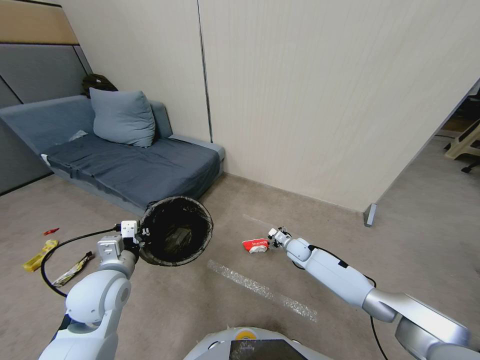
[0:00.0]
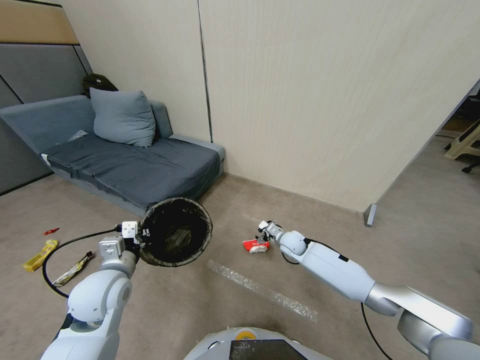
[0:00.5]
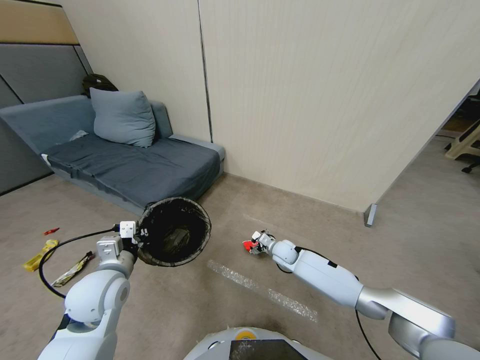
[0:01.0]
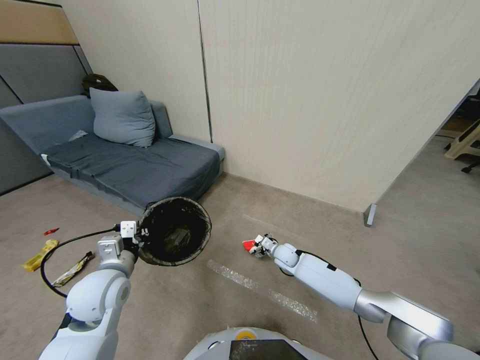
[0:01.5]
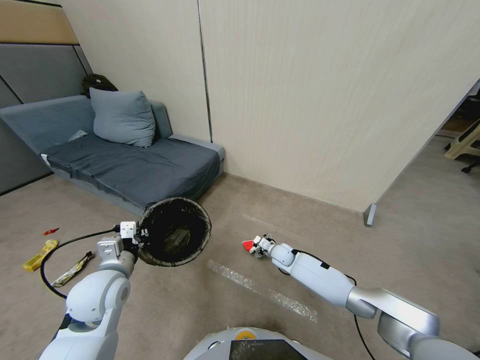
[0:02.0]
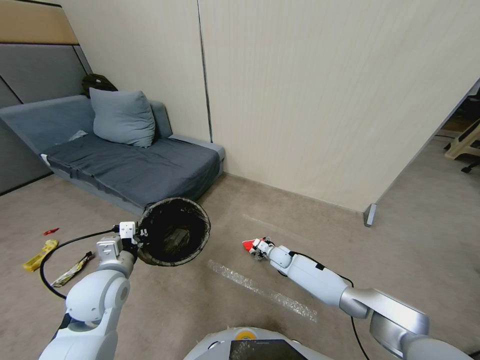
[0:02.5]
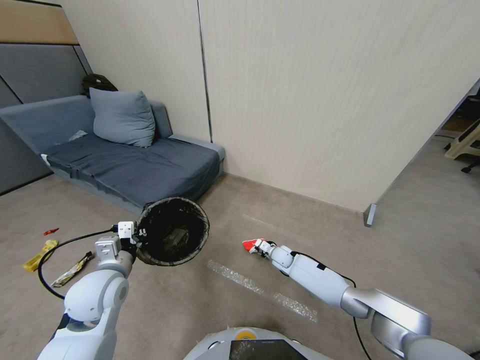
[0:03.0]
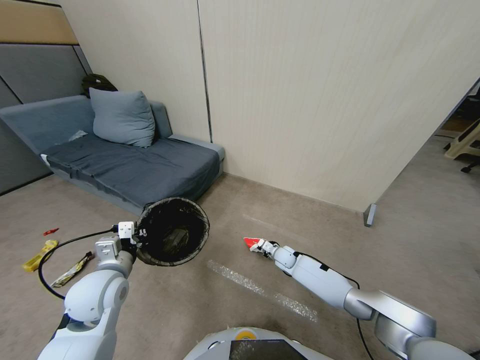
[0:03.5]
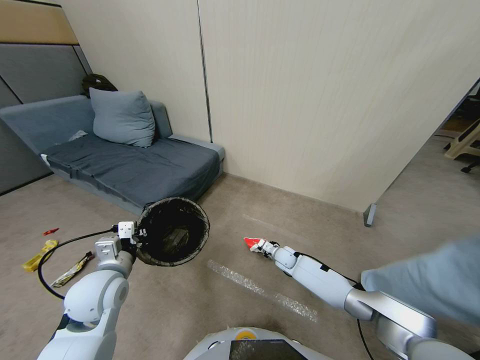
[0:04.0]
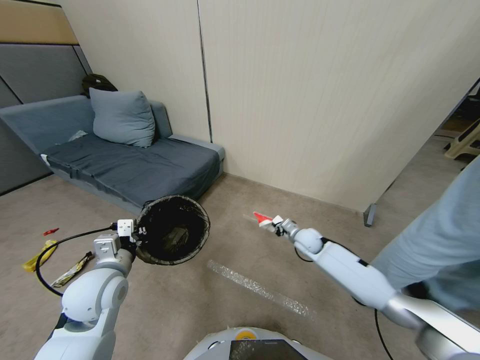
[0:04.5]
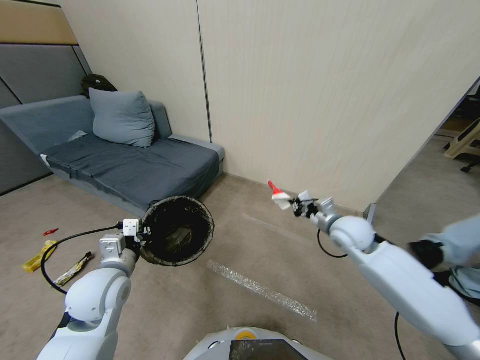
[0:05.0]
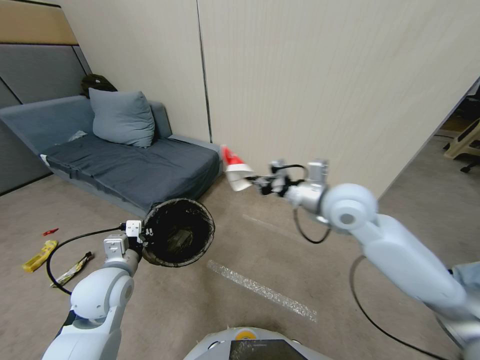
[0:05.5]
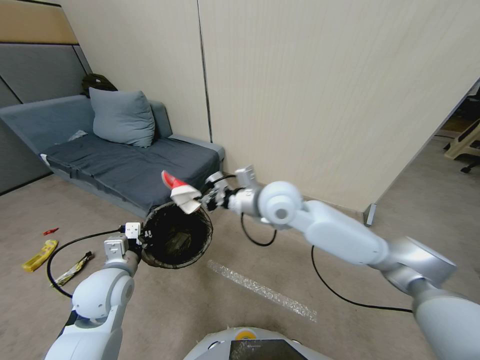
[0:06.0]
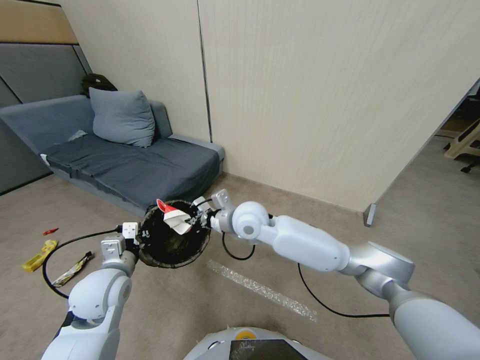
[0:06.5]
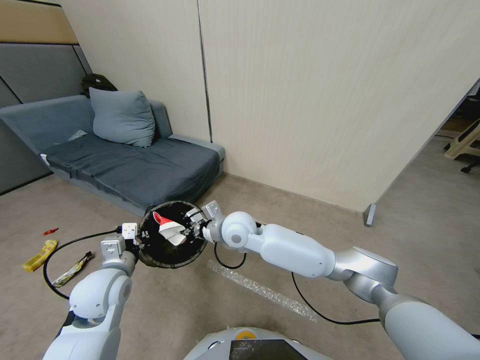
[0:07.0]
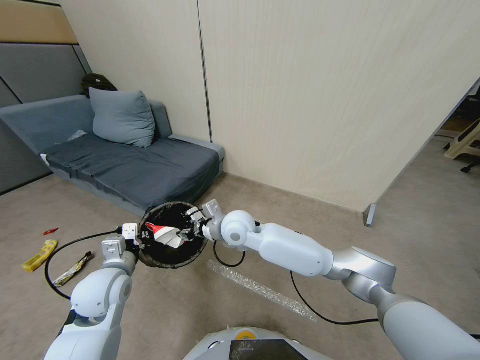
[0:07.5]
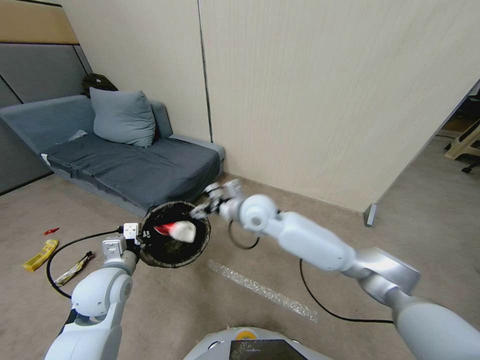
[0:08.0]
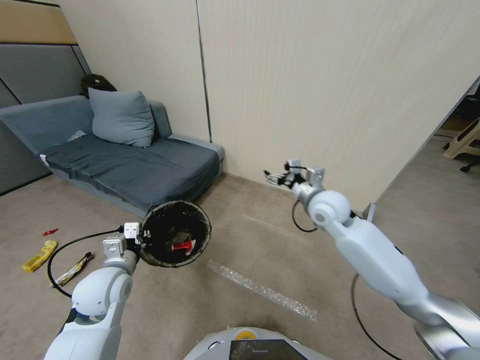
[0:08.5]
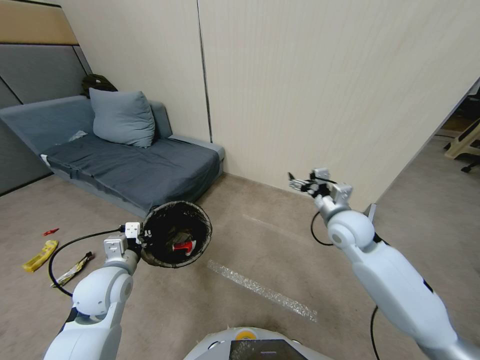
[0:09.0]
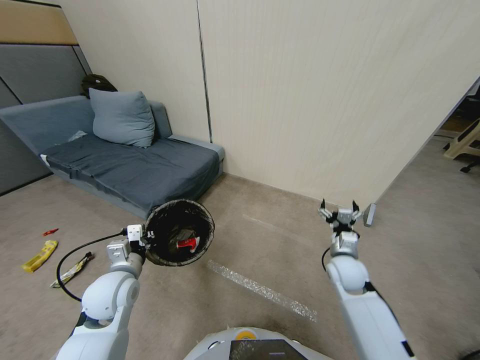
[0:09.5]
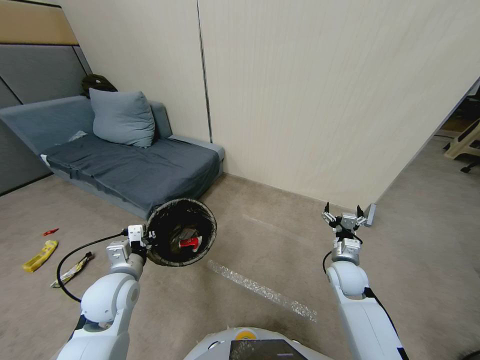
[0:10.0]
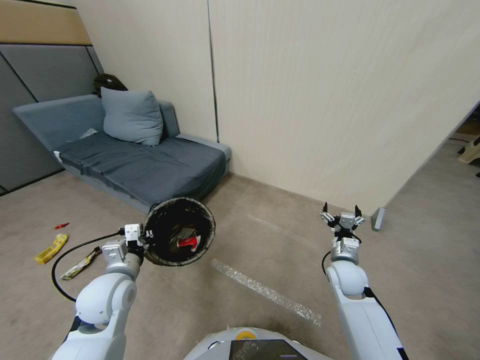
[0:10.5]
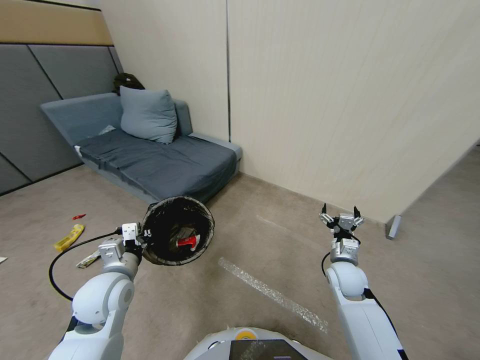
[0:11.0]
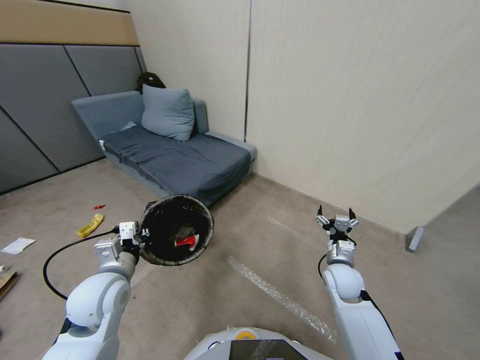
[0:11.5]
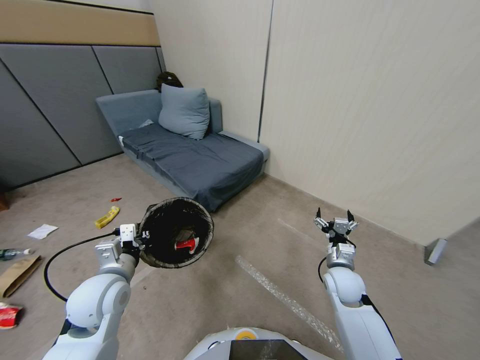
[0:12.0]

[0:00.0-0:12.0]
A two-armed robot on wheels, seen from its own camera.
Task of the whole recording: Pick up the trash bin, then pick up the garbage from the floor and place it into the trash bin.
0:00.0 to 0:02.0: The right gripper heads to the left, covering approximately 5 cm.
0:02.0 to 0:04.0: The right gripper closes.
0:04.0 to 0:06.0: The right gripper shifts some 40 cm upward.
0:06.0 to 0:08.0: The right gripper travels to the left and back again, some 5 cm each way, and opens up.
0:08.0 to 0:10.0: The right gripper travels to the right, downward and backward by approximately 30 cm.

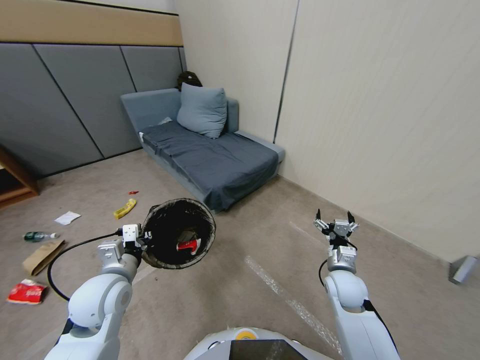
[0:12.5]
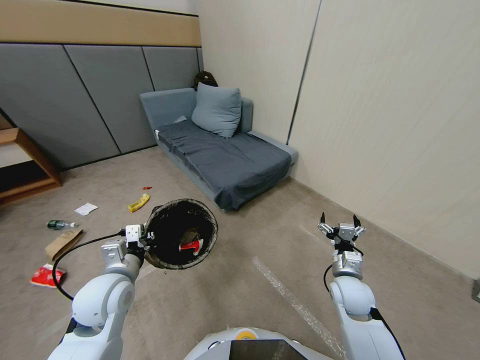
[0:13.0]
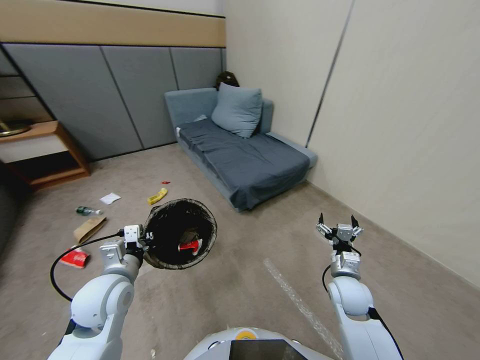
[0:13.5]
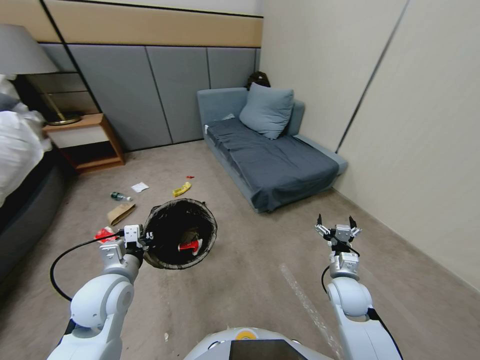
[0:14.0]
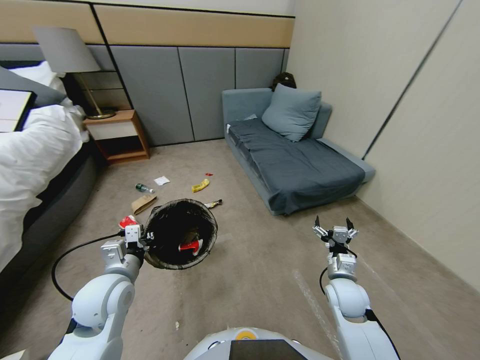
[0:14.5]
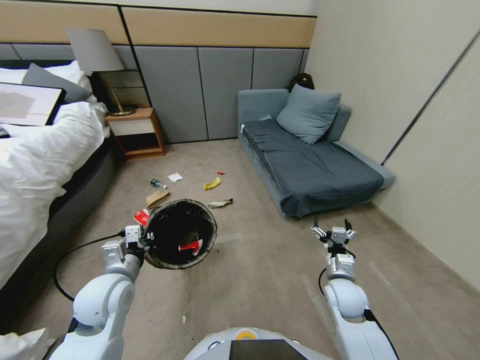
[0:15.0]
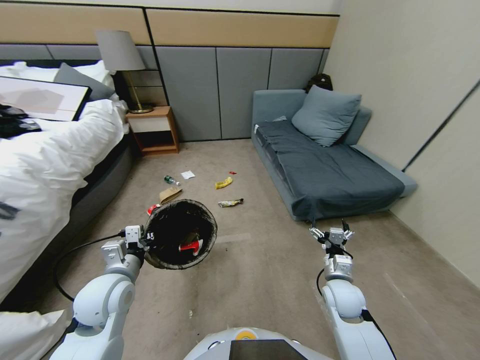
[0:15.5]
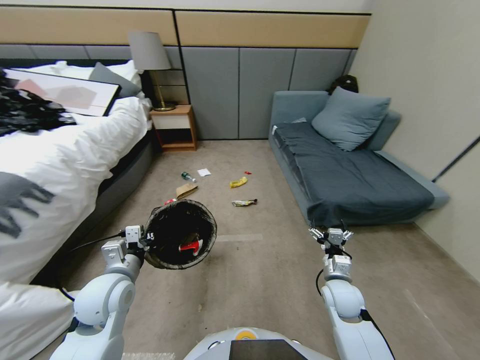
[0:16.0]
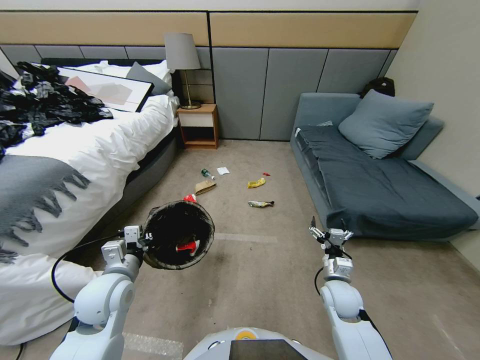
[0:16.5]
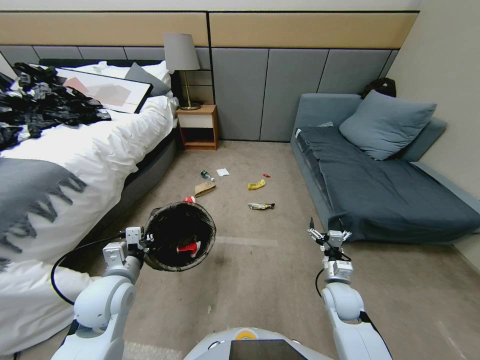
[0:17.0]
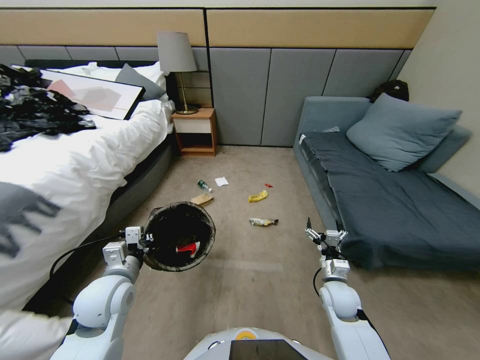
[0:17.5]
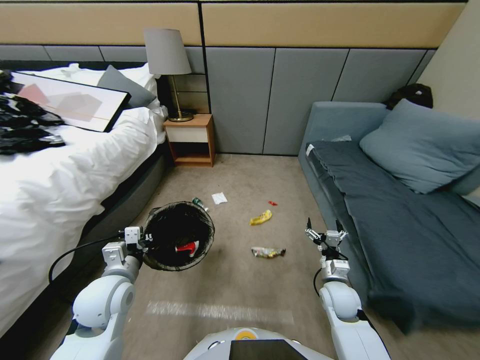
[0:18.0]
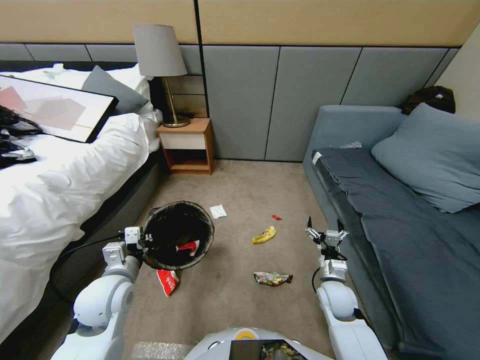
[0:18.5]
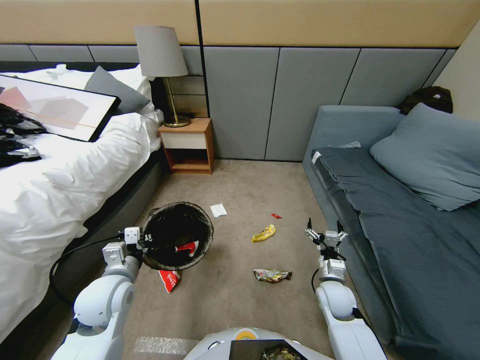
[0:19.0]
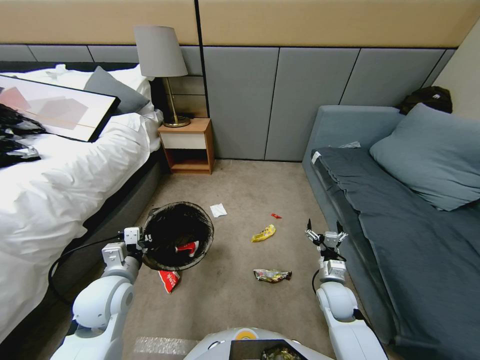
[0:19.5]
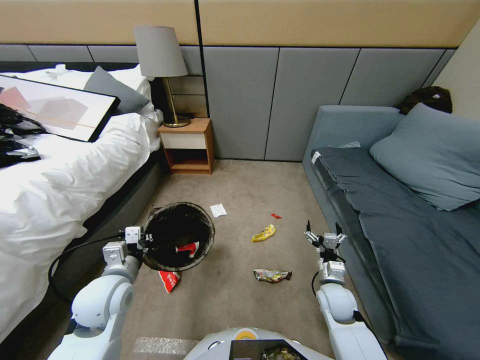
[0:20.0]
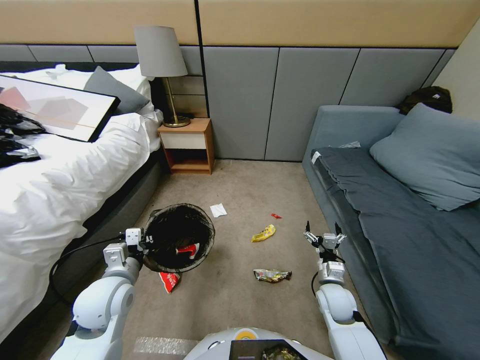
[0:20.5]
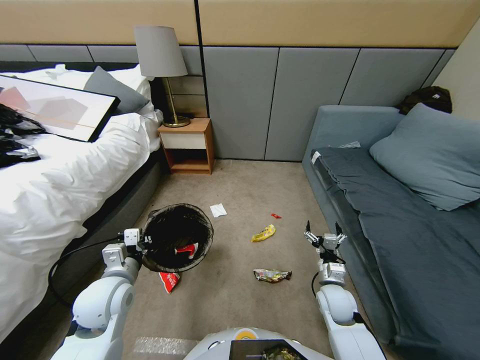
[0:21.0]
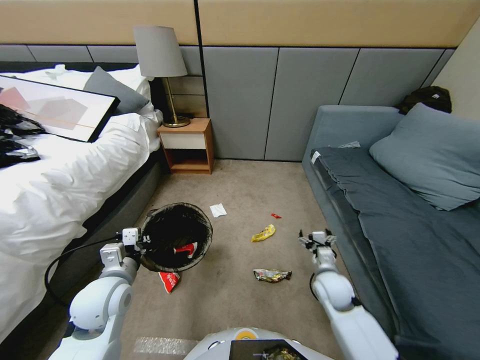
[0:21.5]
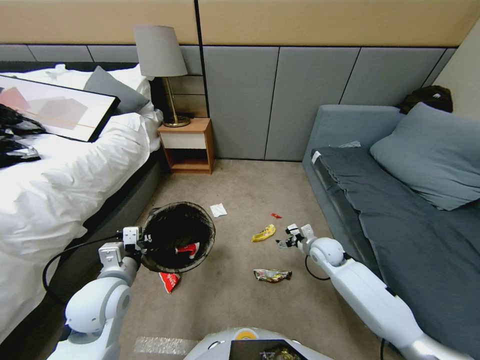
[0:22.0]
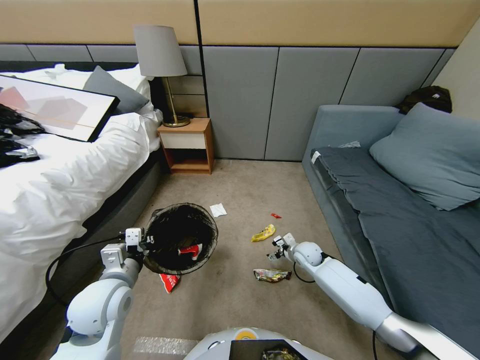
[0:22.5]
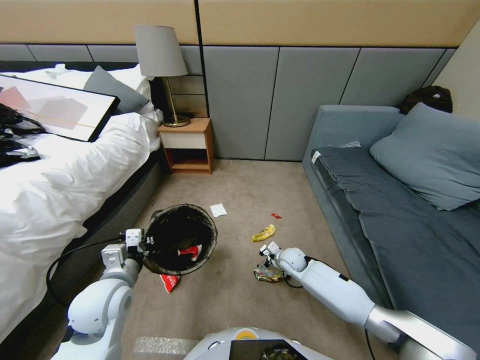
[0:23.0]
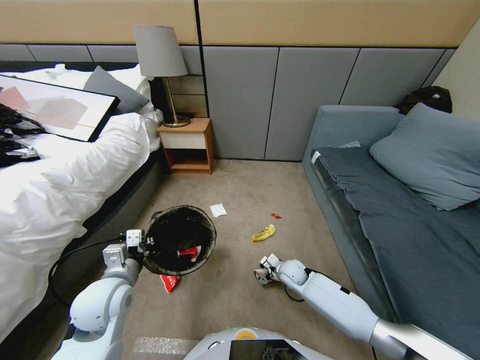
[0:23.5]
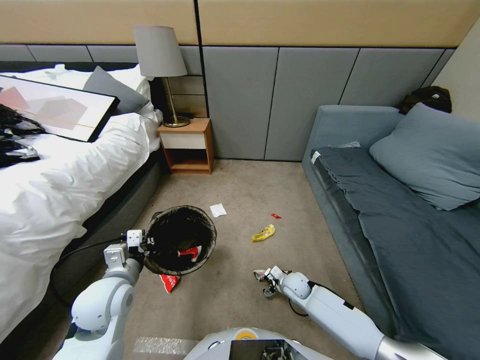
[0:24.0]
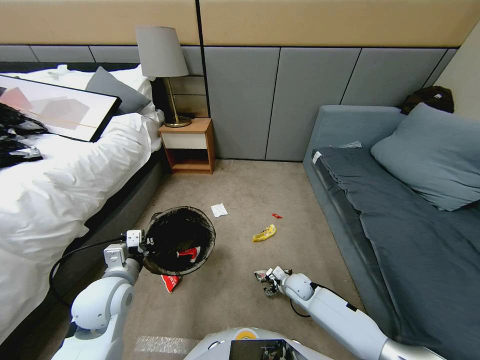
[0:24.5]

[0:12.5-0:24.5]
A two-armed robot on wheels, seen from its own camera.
Task of the whole recording: Pick up the trash bin, then pick up the garbage from the floor and place it into the trash bin.
0:18.5 to 0:20.5: Both grippers stay put.
0:20.5 to 0:22.5: The right gripper shifts about 15 cm forward.
0:22.5 to 0:24.5: The right gripper shifts some 10 cm backward and downward.

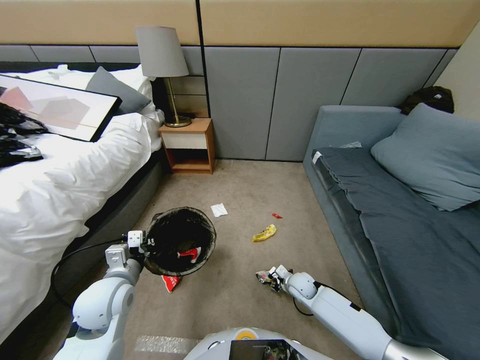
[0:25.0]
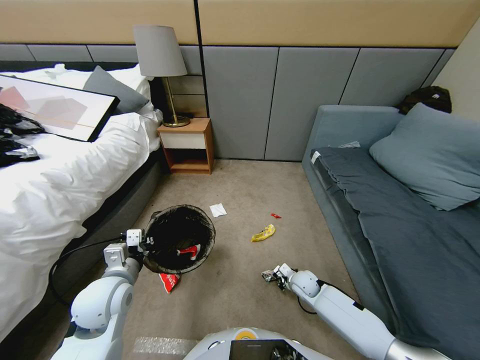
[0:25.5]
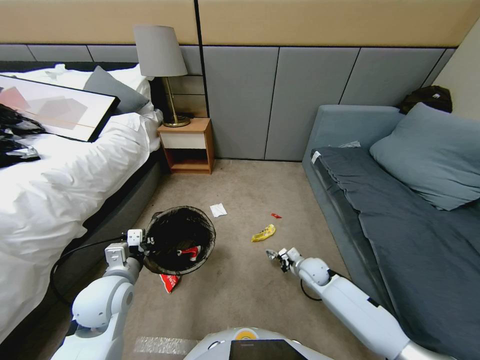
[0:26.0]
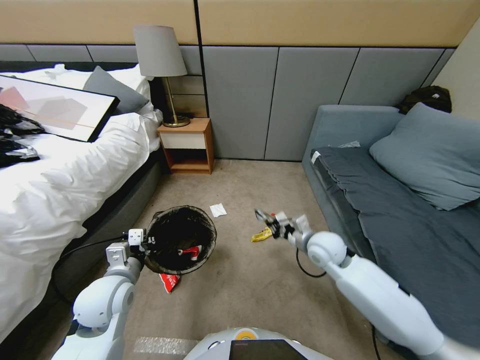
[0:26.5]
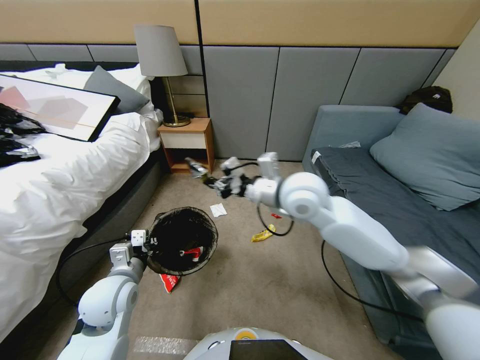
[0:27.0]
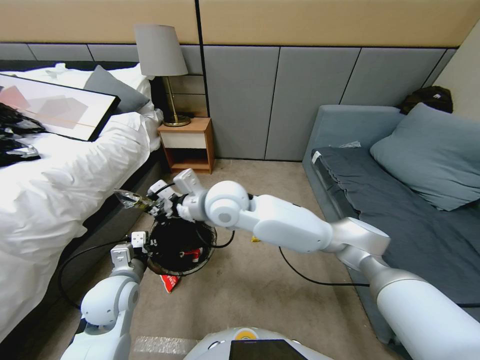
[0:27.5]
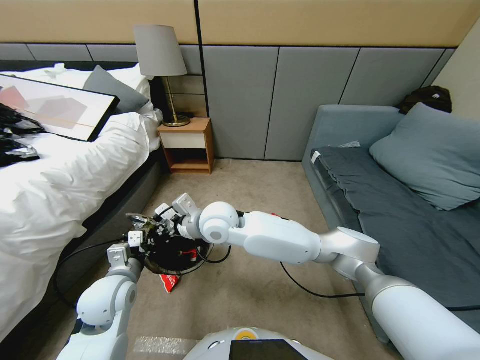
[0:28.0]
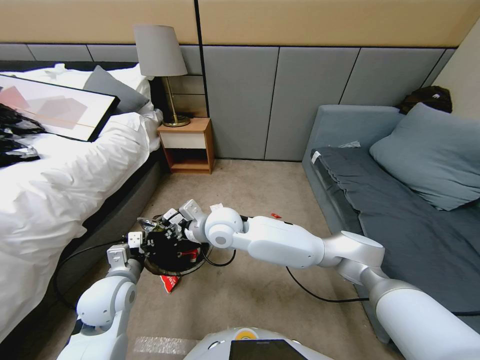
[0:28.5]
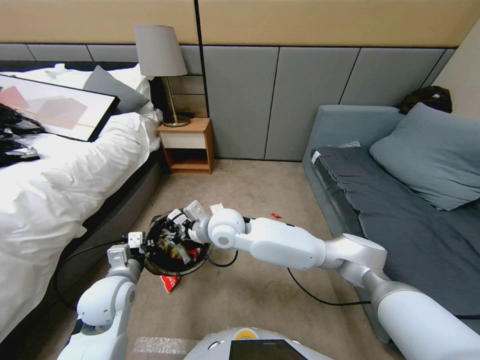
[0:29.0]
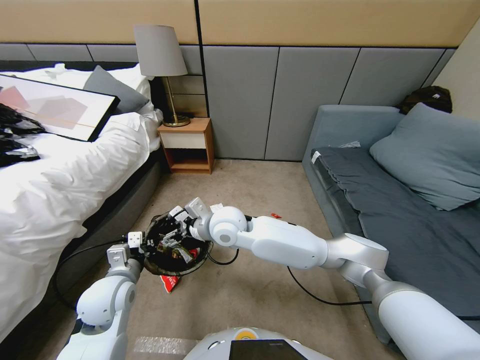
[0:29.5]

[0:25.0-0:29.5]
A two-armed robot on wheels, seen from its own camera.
Task of the whole recording: Pick up the trash bin, then pick up the garbage from the floor and place it into the trash bin.
0:25.0 to 0:27.0: The right gripper travels upward by about 40 cm, and closes its fingers.
0:27.0 to 0:29.5: The right gripper goes some 15 cm to the left and downward, and opens up.
